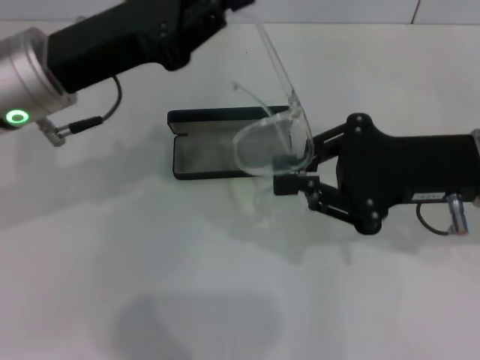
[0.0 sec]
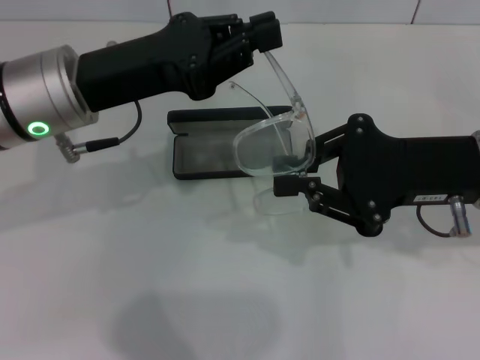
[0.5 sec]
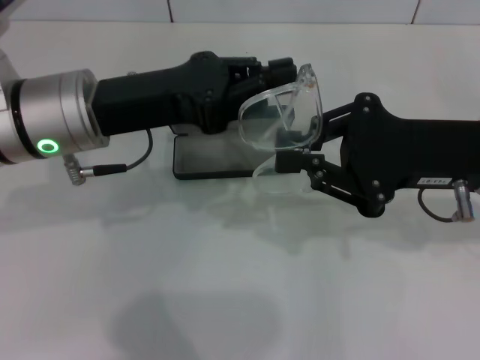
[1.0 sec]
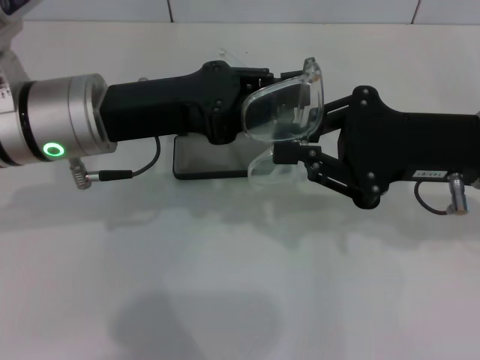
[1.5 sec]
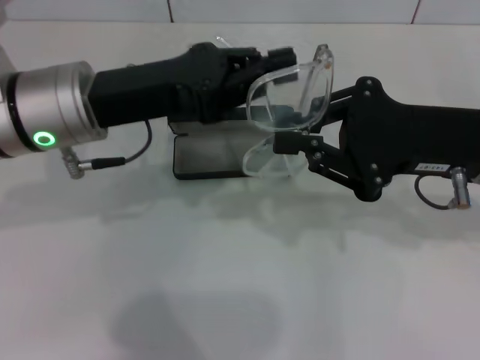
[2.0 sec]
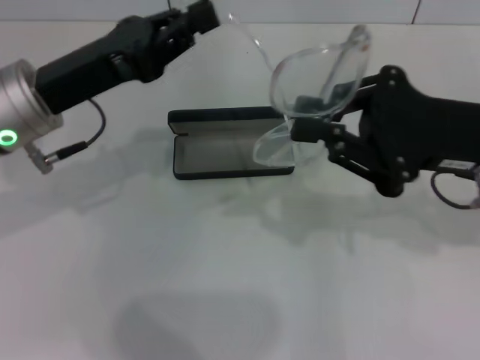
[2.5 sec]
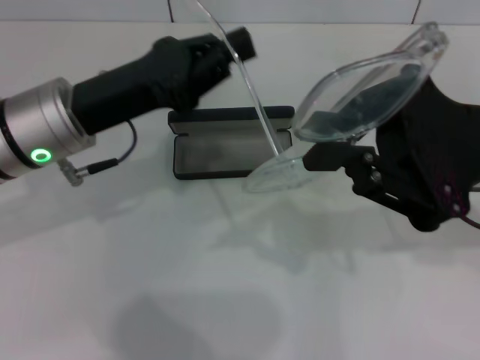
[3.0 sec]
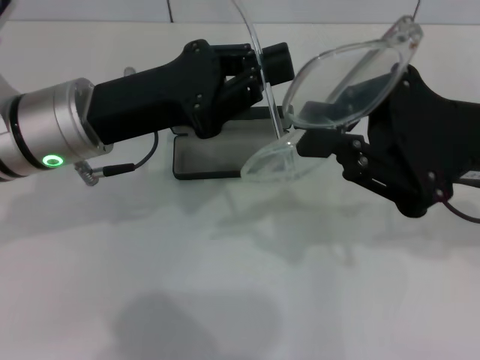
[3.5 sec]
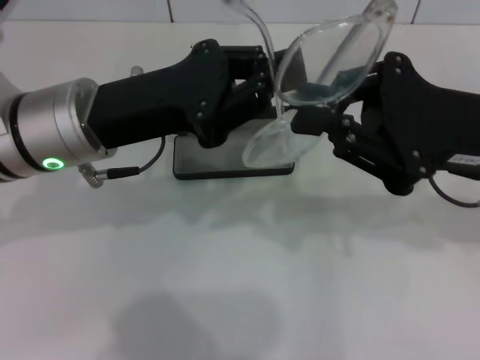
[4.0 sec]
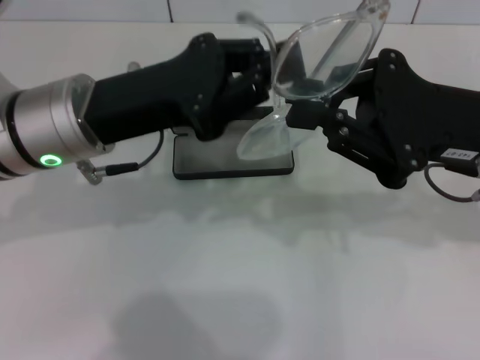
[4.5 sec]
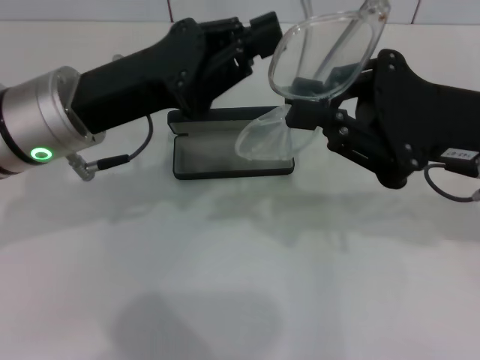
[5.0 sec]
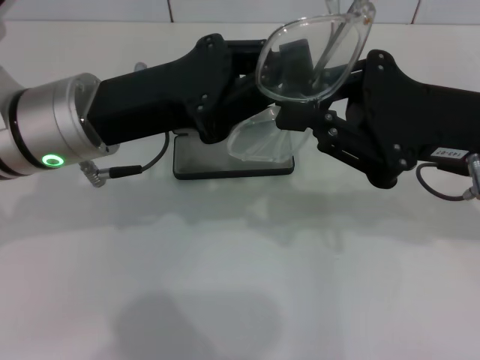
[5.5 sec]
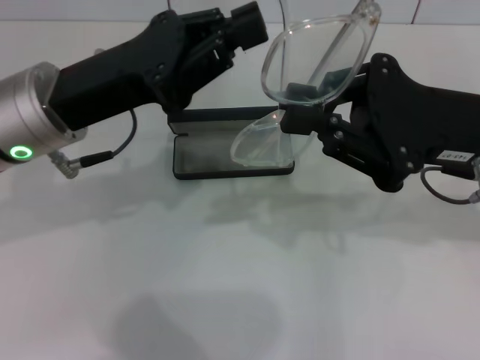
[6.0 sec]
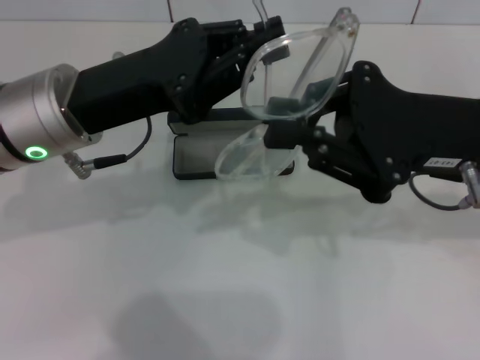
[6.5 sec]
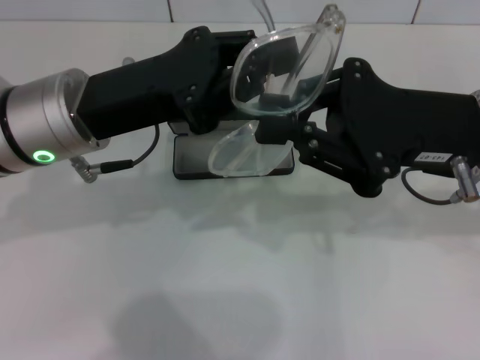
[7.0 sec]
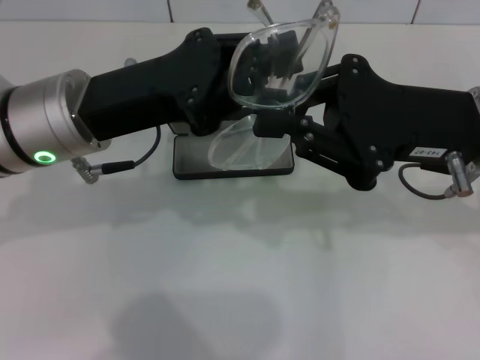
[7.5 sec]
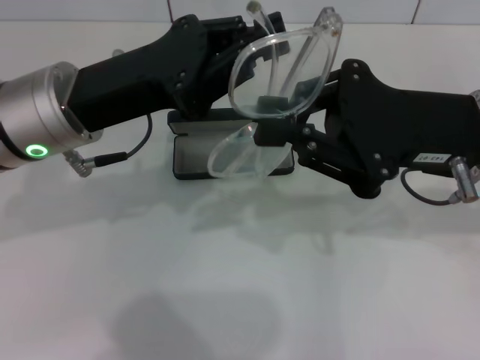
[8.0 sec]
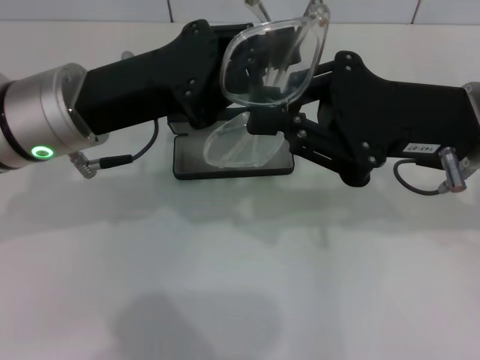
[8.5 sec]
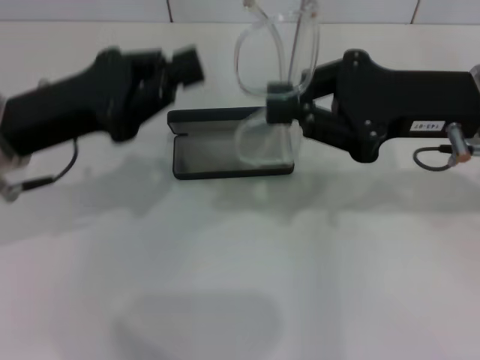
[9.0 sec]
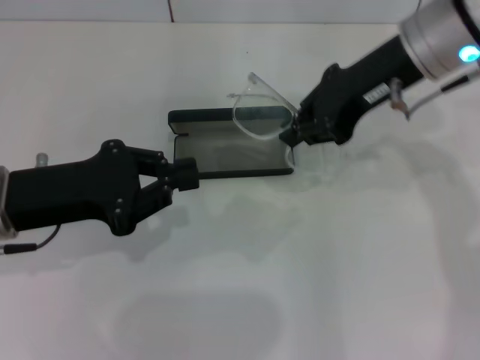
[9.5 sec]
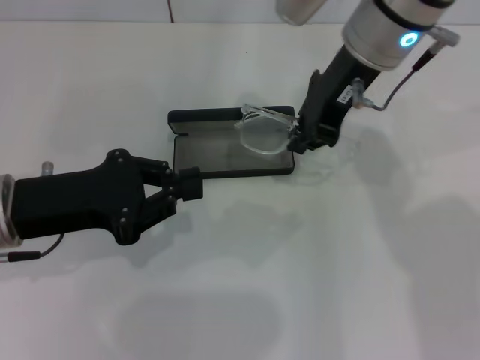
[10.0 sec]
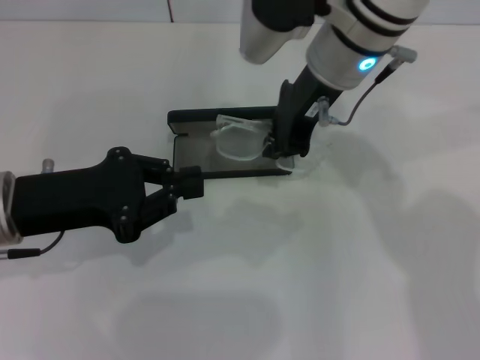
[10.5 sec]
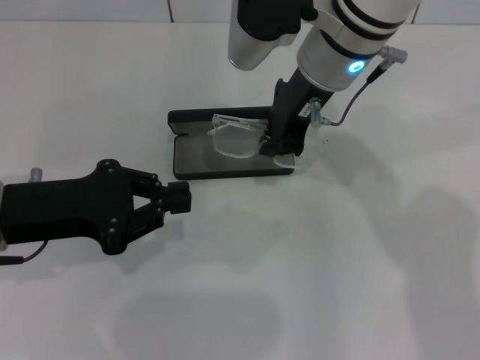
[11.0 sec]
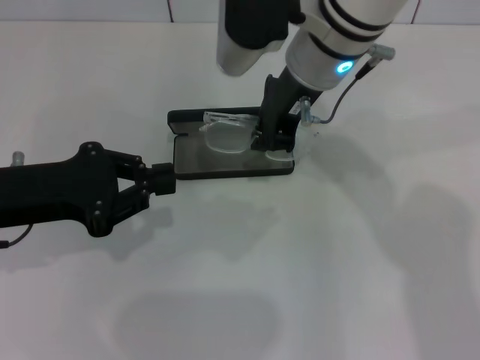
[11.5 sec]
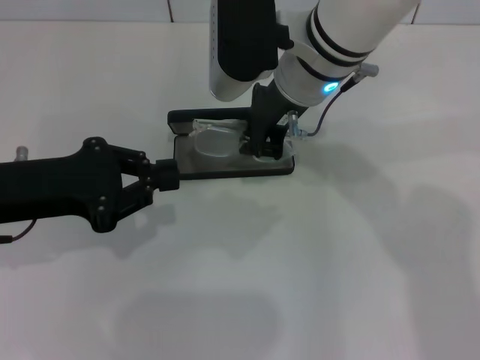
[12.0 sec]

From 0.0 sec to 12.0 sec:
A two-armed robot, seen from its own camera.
Step, from 0.0 sec to 8.5 sec: Lift the glasses with your right hand.
From 2.0 sec to 4.0 sec: There are only small adjustments of the grippers.
From 6.0 sec to 8.0 sec: There are only small adjustments of the grippers.
From 8.0 sec to 10.0 sec: The right gripper is displaced forward, to the left and upward by some 15 cm, while the left gripper moves to the left and backward, some 10 cm.
From 10.0 sec to 12.0 sec: The right gripper is displaced to the left by some 5 cm.

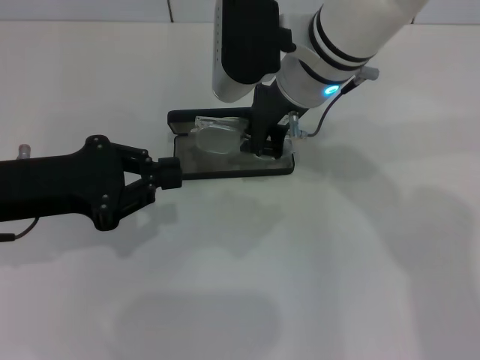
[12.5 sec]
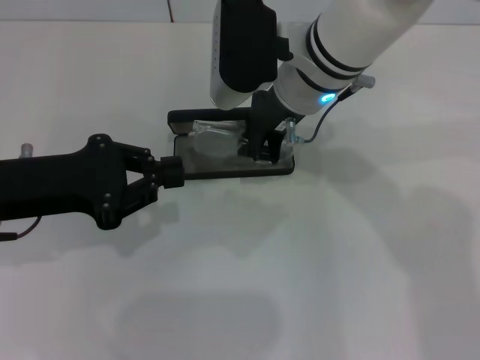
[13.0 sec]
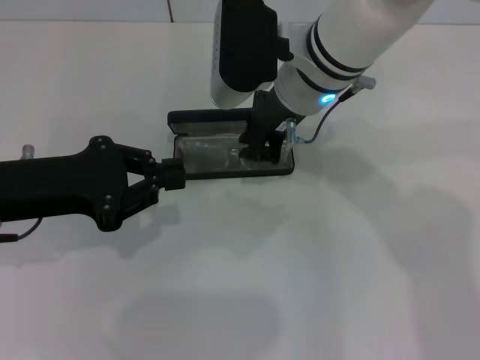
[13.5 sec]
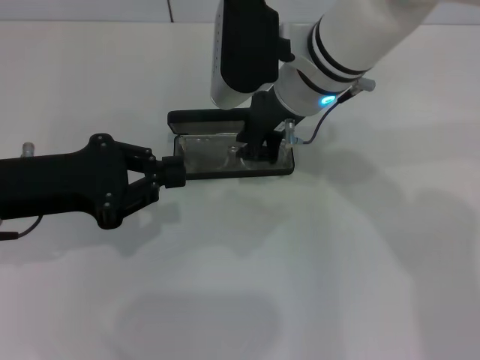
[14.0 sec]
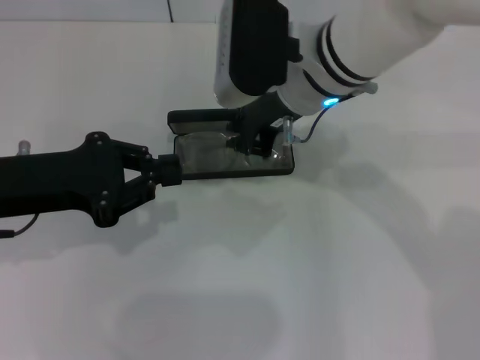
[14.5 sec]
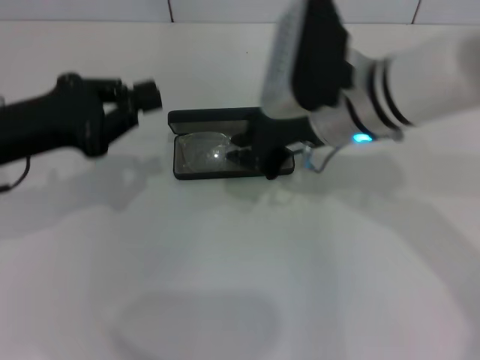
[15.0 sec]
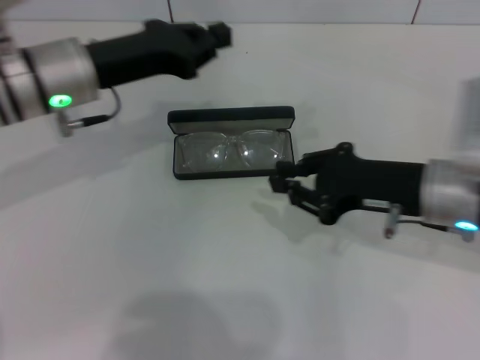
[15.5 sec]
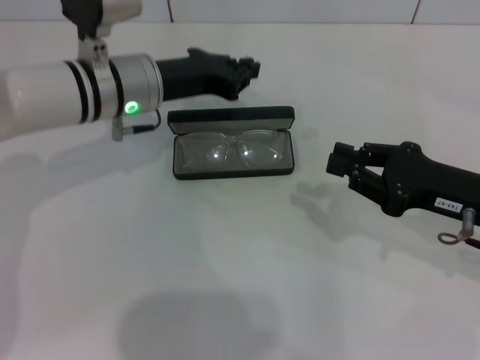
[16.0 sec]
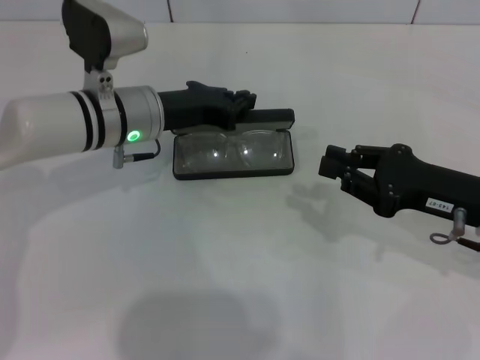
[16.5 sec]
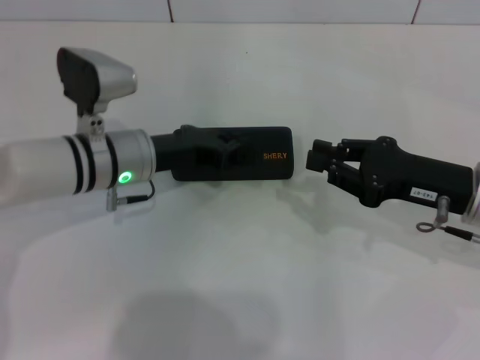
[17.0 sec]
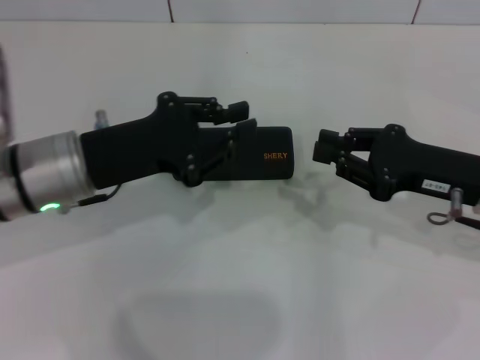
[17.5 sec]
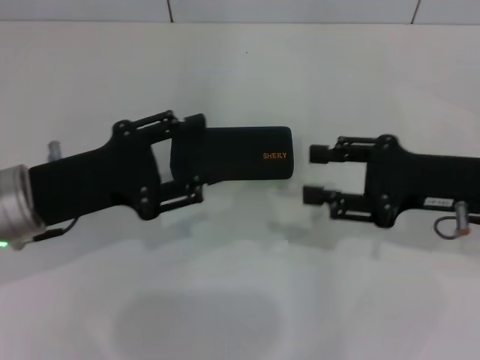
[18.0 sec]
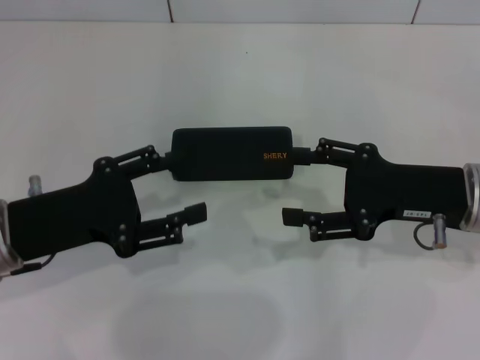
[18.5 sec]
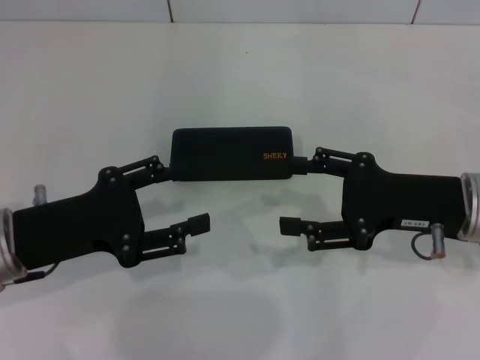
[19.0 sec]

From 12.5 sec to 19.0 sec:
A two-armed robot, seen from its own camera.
Step, from 14.5 sec to 16.5 sec: Close the glasses case with your left hand.
From 12.5 sec to 14.5 sec: The grippers move only a little.
From 14.5 sec to 17.0 sec: The right gripper shifts roughly 25 cm to the right, downward and backward, while the left gripper travels to the right, forward and downward by roughly 15 cm.
From 17.0 sec to 19.0 sec: The right gripper opens its fingers, while the left gripper goes about 15 cm backward and to the left, and opens its fingers.
